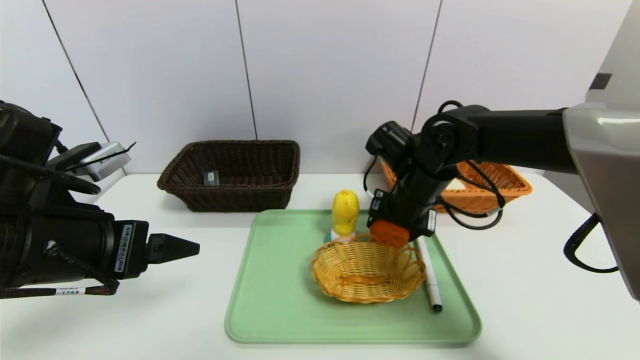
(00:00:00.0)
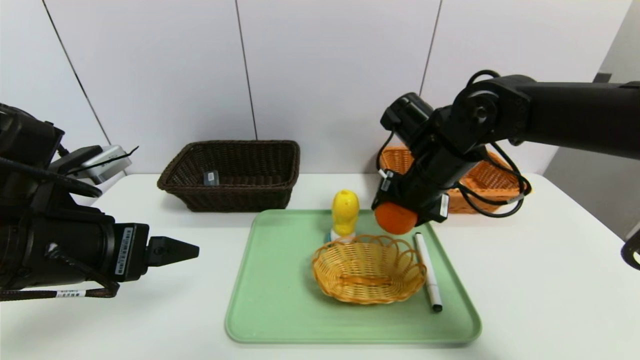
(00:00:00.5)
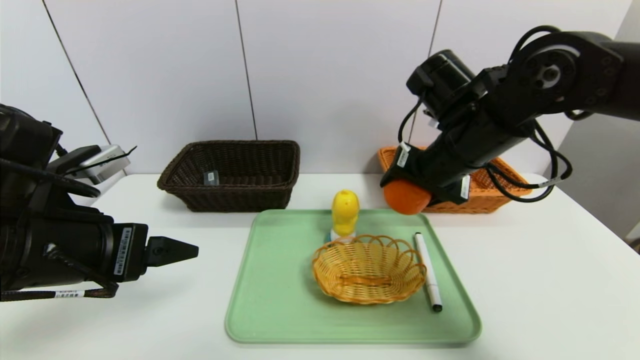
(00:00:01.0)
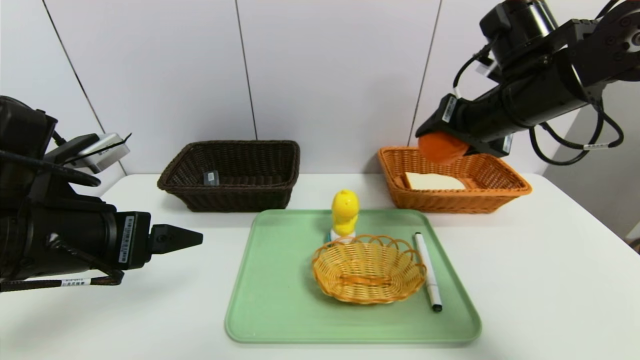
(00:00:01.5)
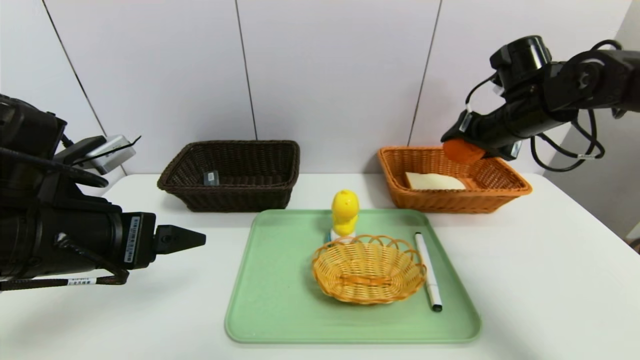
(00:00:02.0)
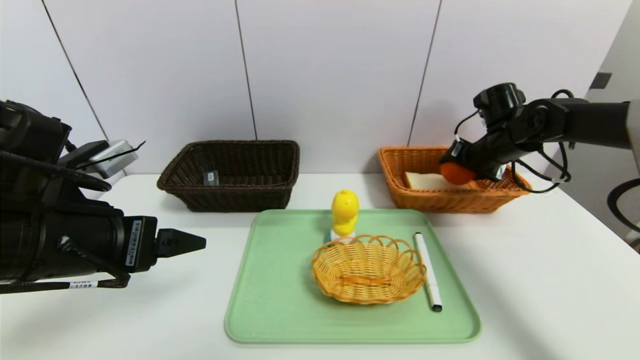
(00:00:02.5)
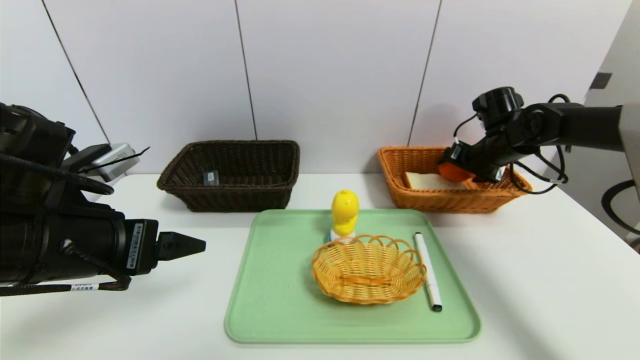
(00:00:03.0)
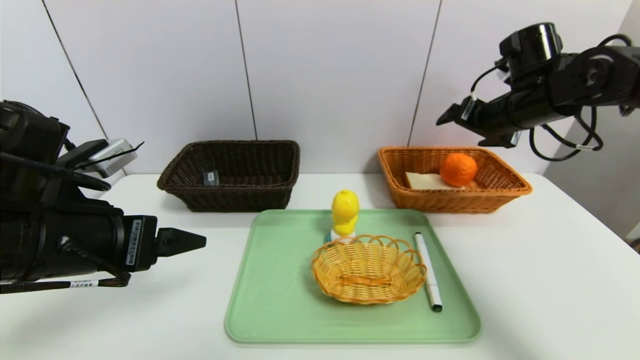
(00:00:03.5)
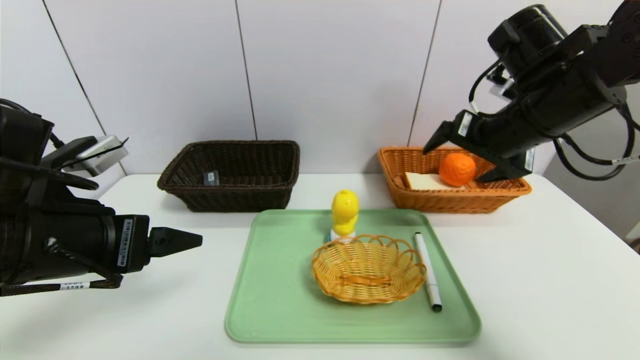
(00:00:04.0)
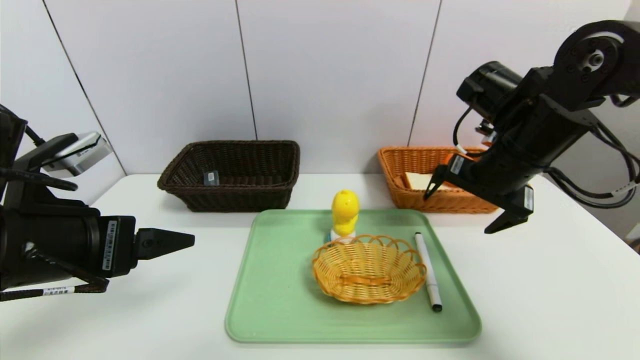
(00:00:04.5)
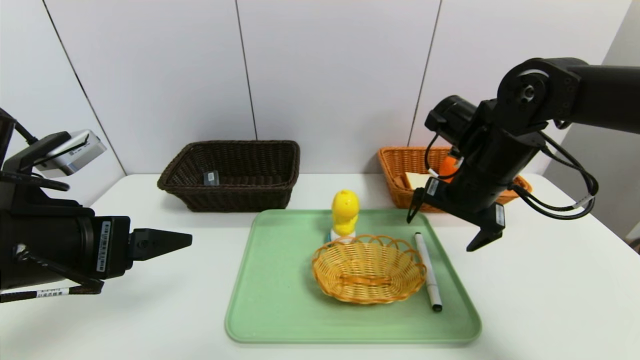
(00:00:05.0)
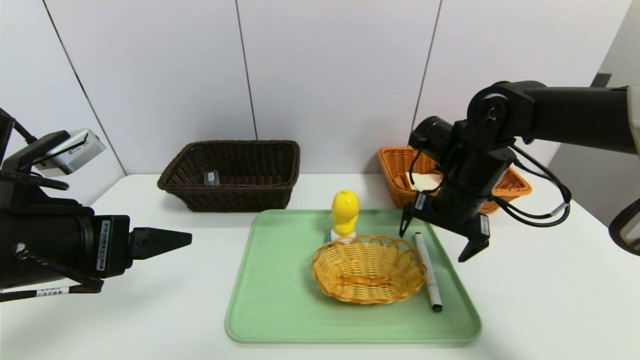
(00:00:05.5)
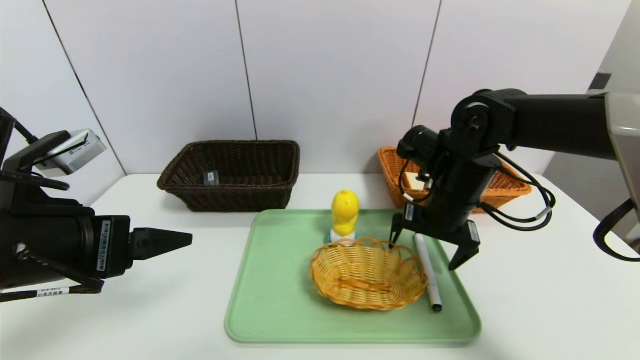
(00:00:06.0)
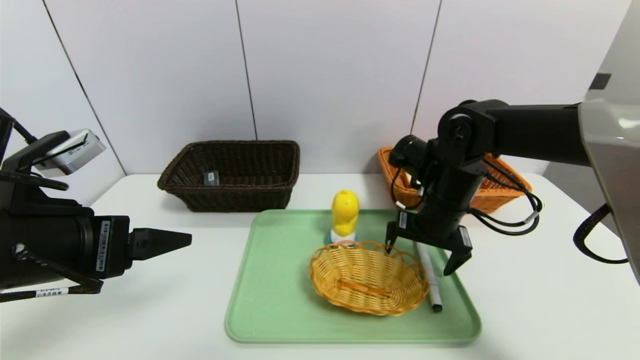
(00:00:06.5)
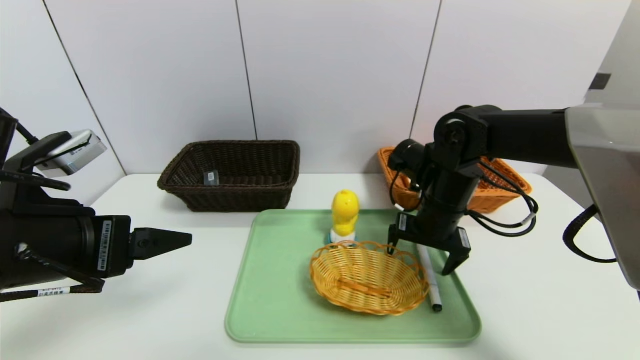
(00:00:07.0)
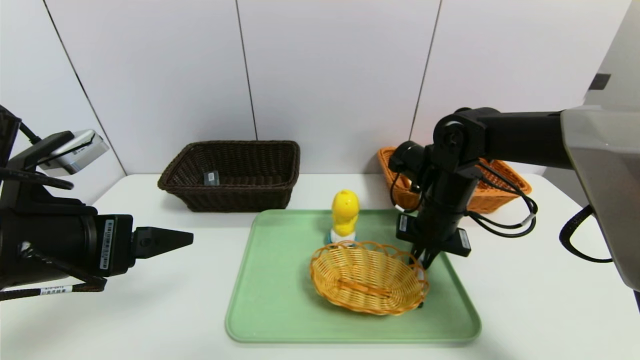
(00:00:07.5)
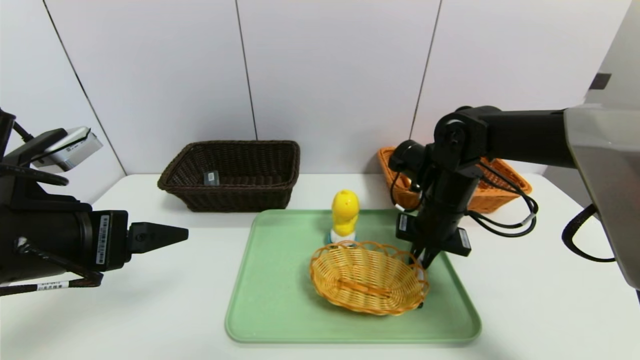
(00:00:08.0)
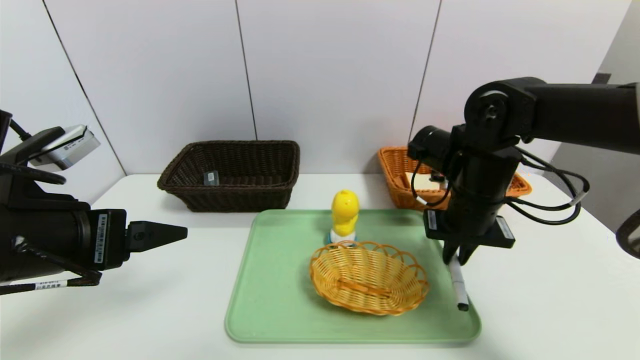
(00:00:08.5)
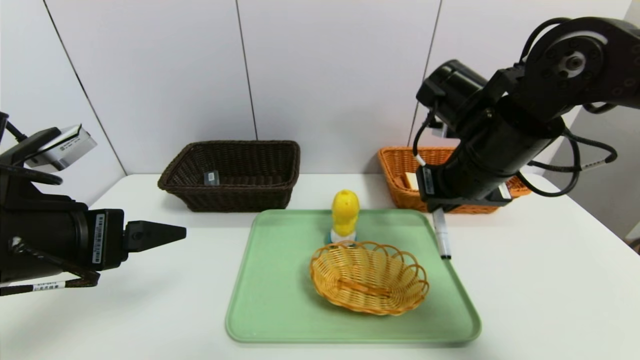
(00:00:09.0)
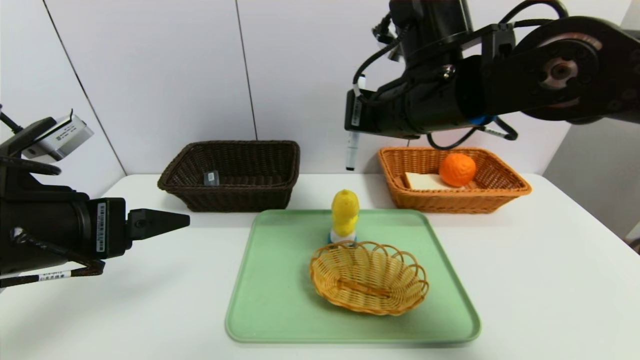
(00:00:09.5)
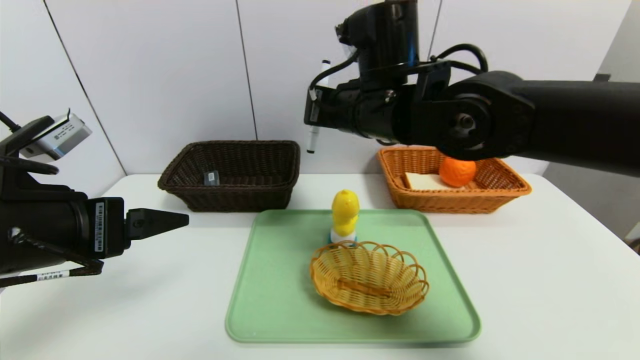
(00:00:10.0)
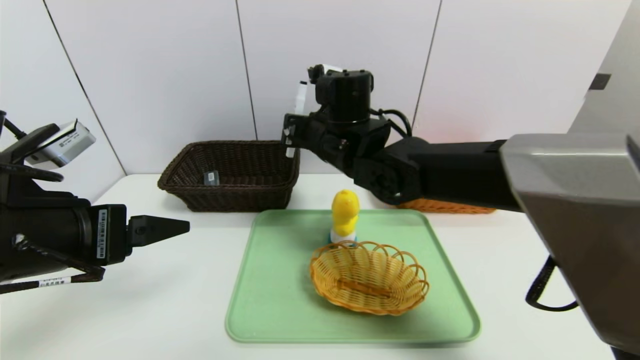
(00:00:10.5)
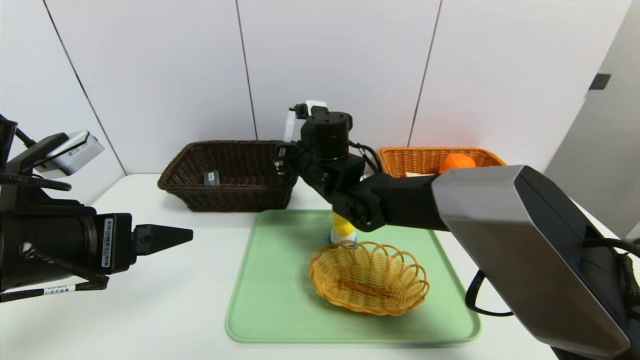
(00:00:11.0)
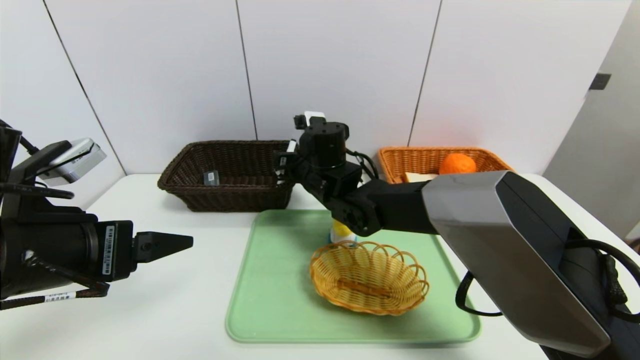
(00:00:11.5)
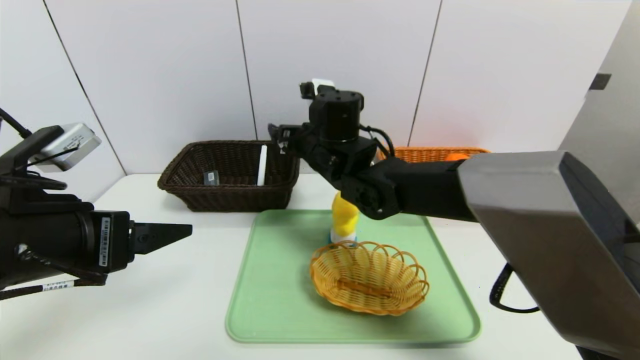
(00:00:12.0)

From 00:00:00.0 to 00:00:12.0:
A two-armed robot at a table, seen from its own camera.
Task of the whole recording: place the food in the right basket with the right gripper, and place the non food items in the left basket with the left gripper.
Step, from 00:00:00.0 to 00:00:03.0: Grasp the orange and put it in the right basket.
From 00:00:00.0 to 00:00:02.0: The right gripper shifts some 15 cm to the right and upward.
From 00:00:02.0 to 00:00:04.0: The right gripper moves backward and to the left, roughly 10 cm.
From 00:00:04.0 to 00:00:06.0: The right gripper travels downward and to the left by some 15 cm.
From 00:00:06.0 to 00:00:08.0: The right gripper closes.
From 00:00:08.0 to 00:00:10.0: The right gripper goes approximately 20 cm upward and to the left.
From 00:00:10.0 to 00:00:12.0: The right gripper shifts about 10 cm downward, forward and to the left, and opens.

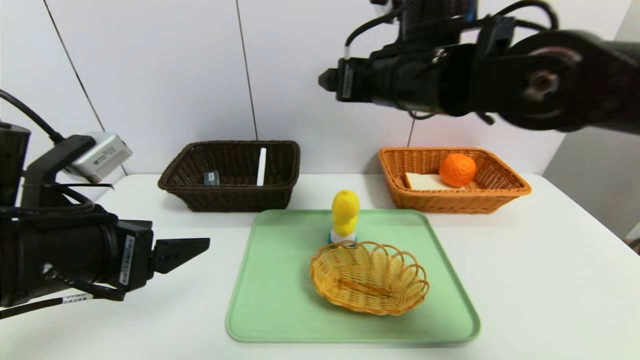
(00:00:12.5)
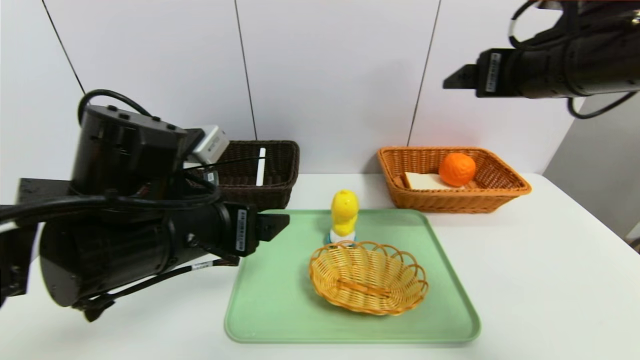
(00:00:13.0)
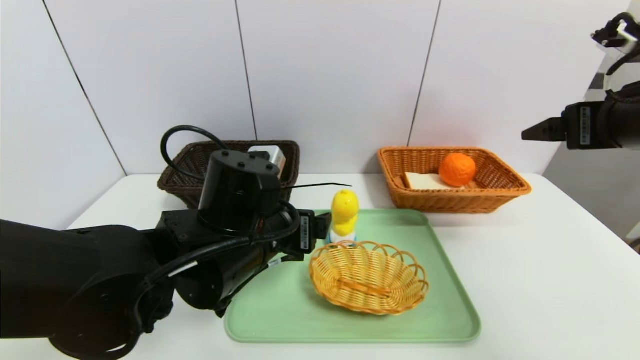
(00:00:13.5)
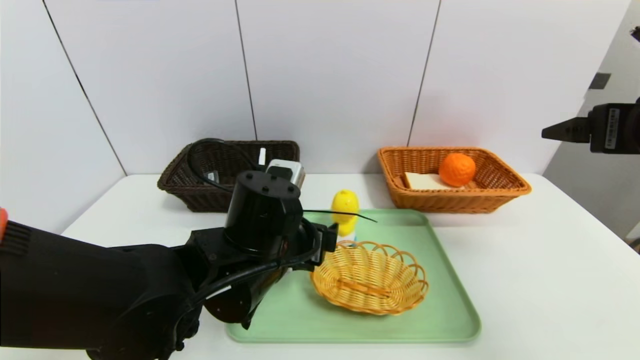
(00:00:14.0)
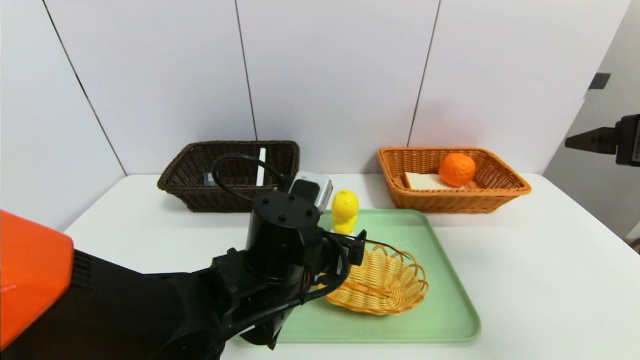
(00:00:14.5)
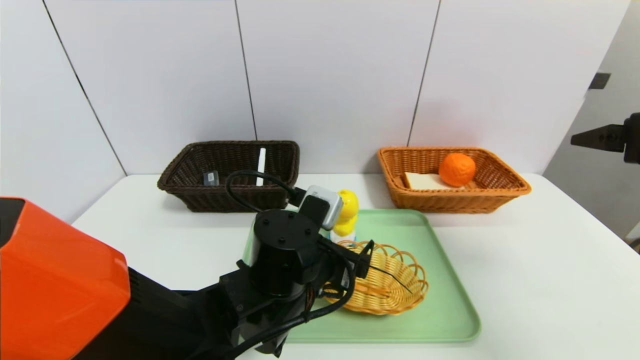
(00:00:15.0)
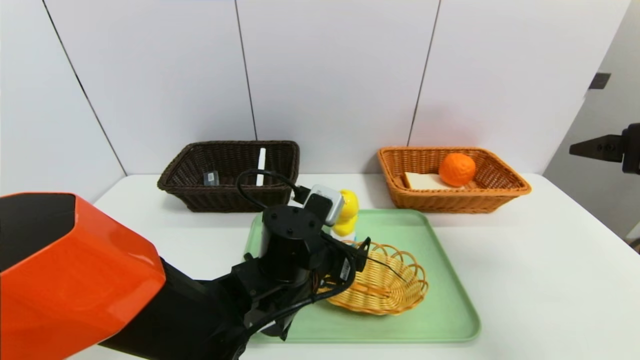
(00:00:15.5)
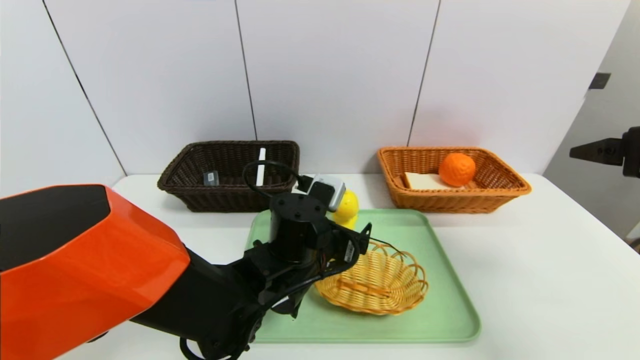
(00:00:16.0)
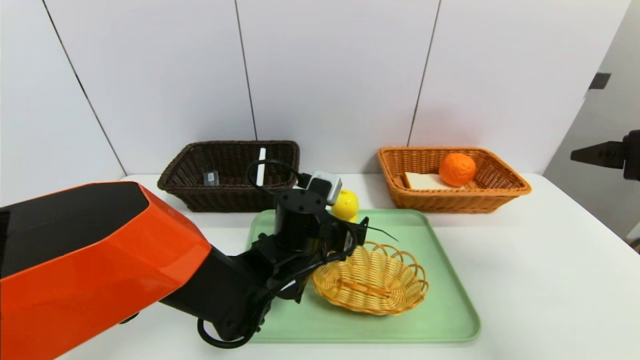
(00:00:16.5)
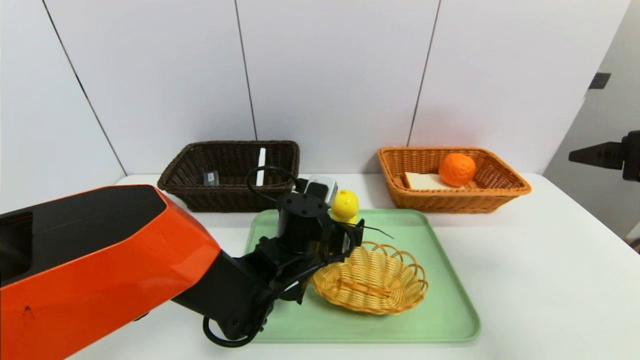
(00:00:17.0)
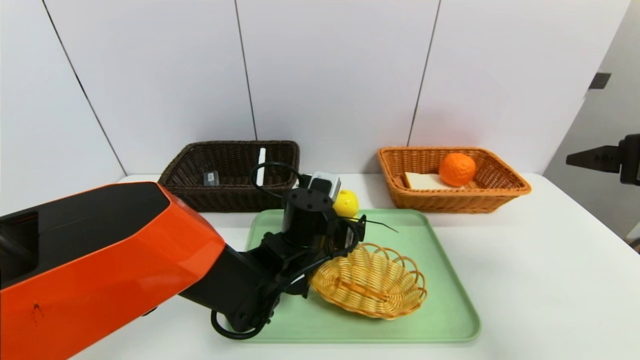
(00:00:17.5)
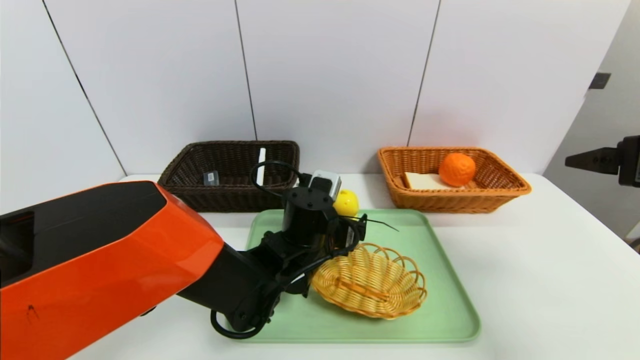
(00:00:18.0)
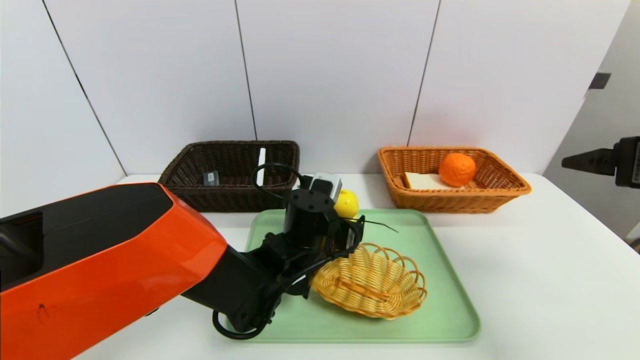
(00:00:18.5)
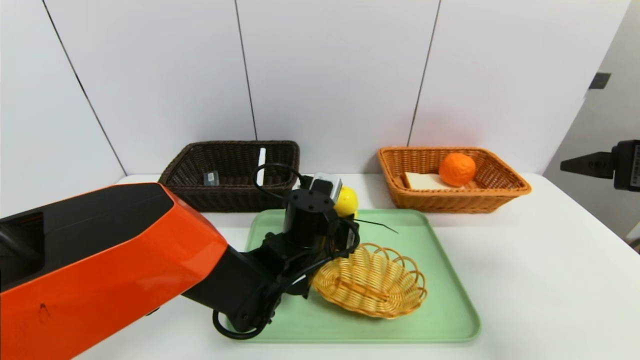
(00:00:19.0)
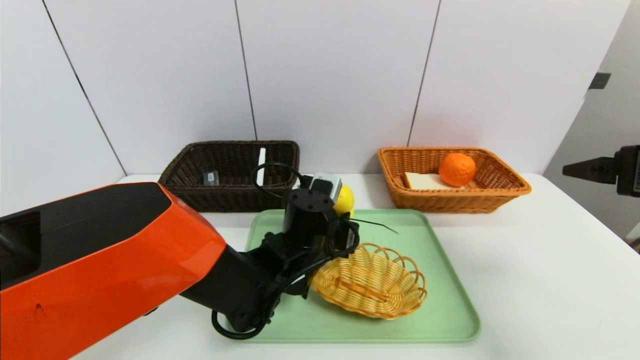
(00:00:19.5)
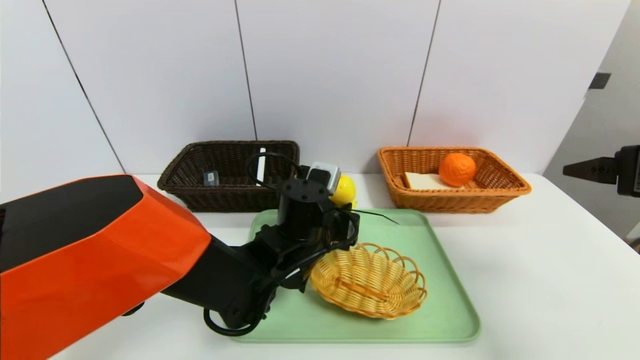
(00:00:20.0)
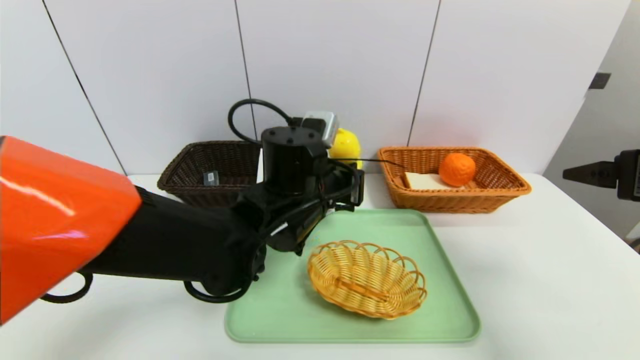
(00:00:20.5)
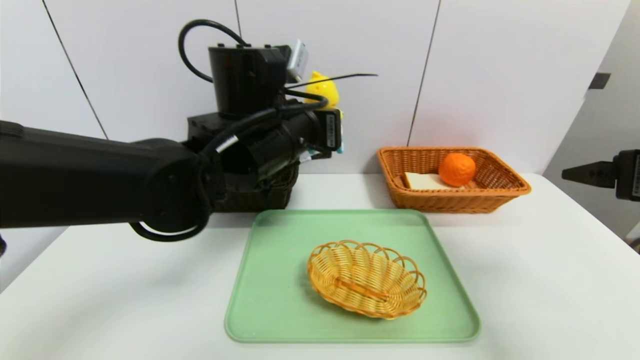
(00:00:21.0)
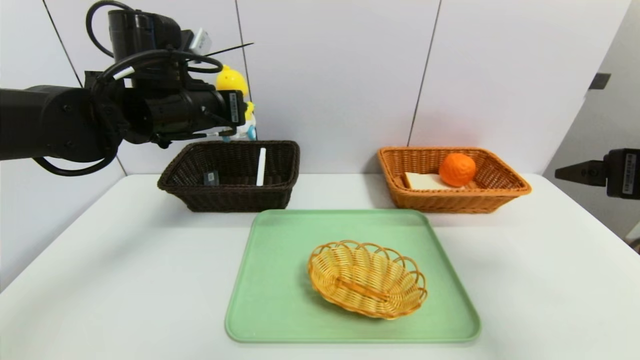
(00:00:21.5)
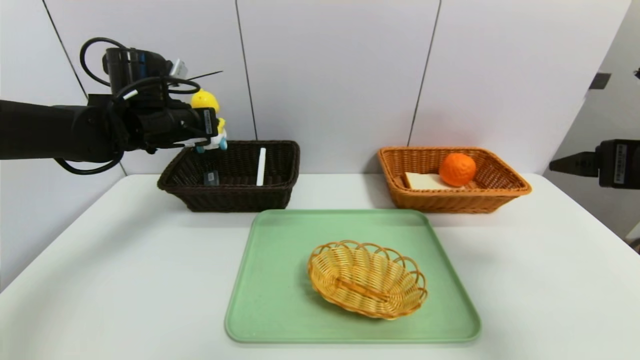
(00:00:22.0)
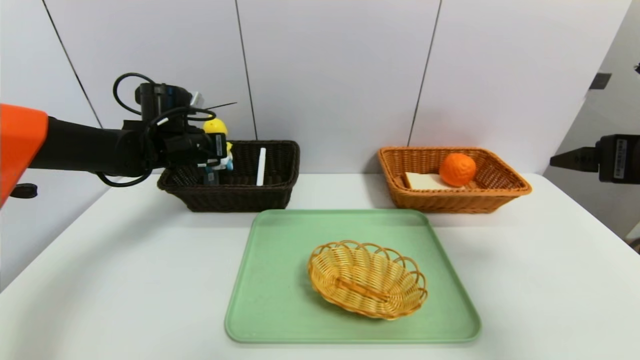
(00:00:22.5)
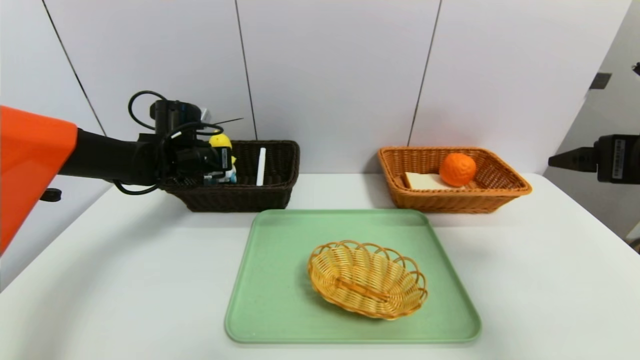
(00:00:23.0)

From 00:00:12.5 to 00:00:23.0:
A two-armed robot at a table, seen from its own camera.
Task of the whole recording: place the food in the right basket with the right gripper, and place the non food items in the left basket with the left gripper.
From 00:00:12.5 to 00:00:14.5: The left gripper travels to the right and downward by about 20 cm. Meanwhile the right gripper travels to the right and backward by some 25 cm.
From 00:00:14.5 to 00:00:16.5: The left gripper goes approximately 5 cm forward.
From 00:00:16.5 to 00:00:19.0: The left gripper closes its fingers.
From 00:00:19.0 to 00:00:21.0: The left gripper moves upward, approximately 20 cm.
From 00:00:21.0 to 00:00:23.0: The left gripper shifts approximately 25 cm to the left, forward and downward.
